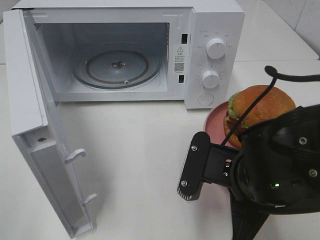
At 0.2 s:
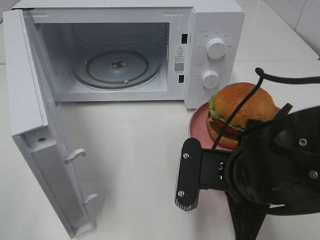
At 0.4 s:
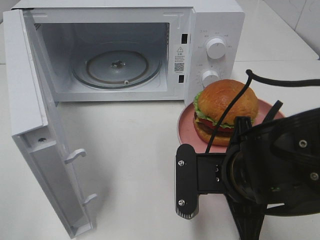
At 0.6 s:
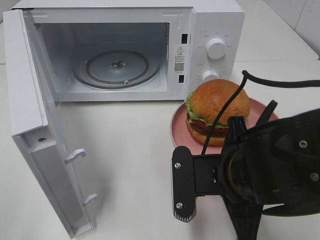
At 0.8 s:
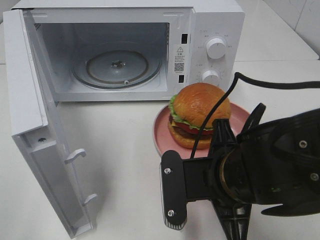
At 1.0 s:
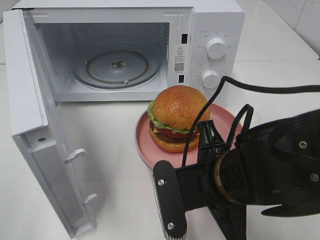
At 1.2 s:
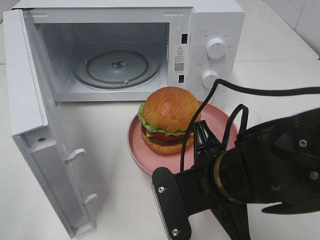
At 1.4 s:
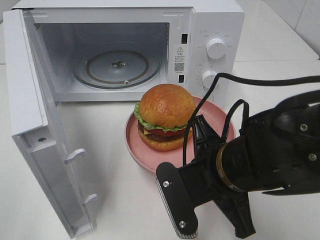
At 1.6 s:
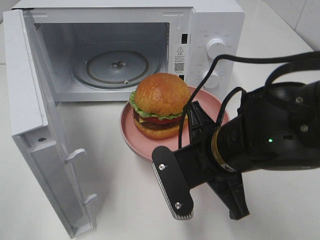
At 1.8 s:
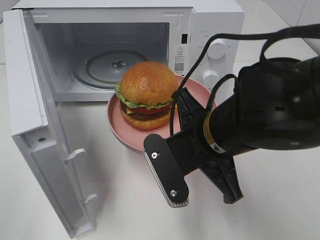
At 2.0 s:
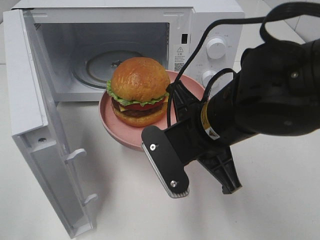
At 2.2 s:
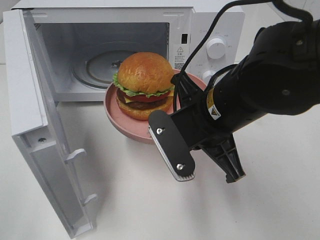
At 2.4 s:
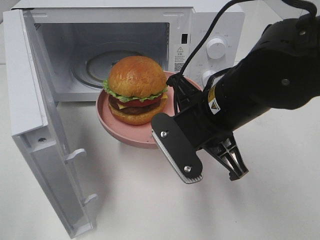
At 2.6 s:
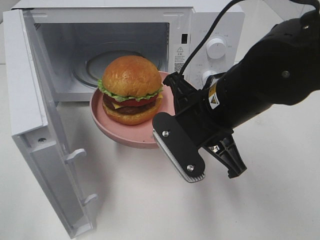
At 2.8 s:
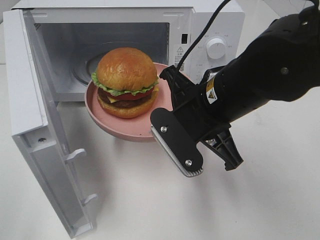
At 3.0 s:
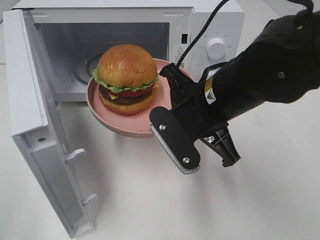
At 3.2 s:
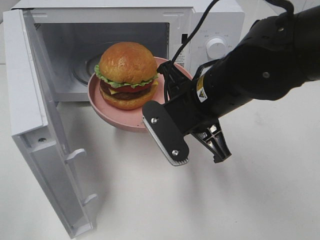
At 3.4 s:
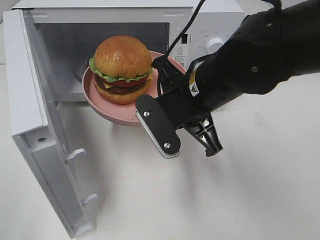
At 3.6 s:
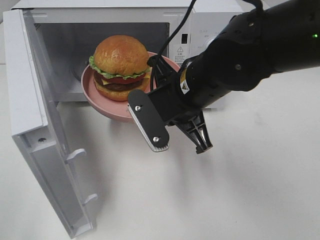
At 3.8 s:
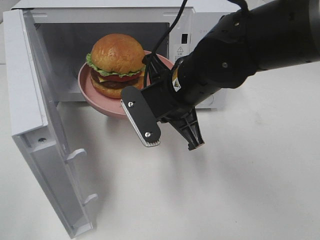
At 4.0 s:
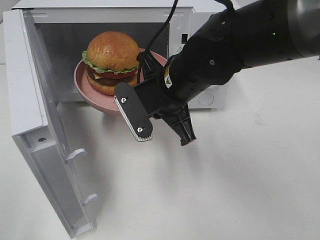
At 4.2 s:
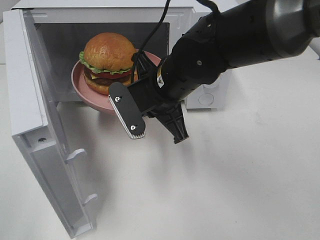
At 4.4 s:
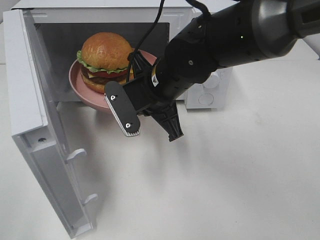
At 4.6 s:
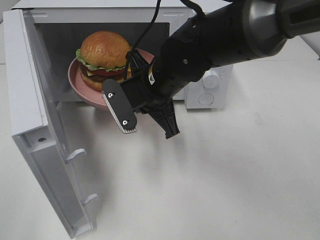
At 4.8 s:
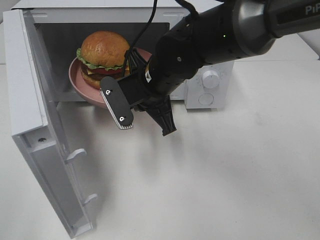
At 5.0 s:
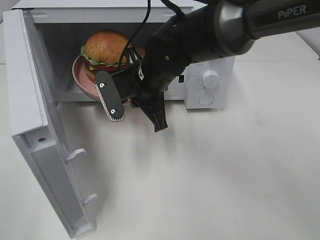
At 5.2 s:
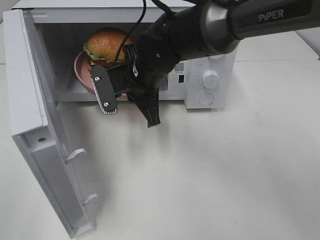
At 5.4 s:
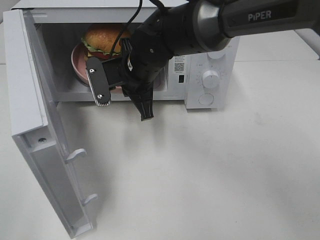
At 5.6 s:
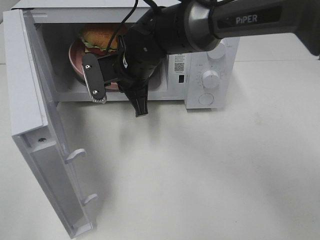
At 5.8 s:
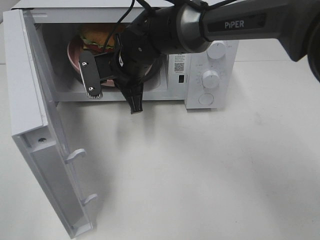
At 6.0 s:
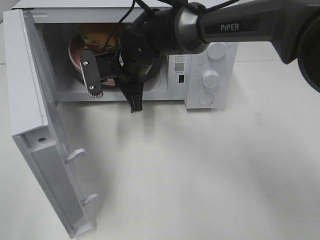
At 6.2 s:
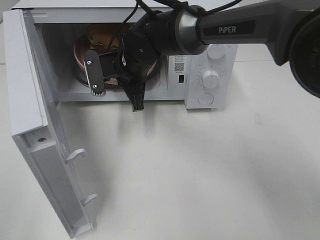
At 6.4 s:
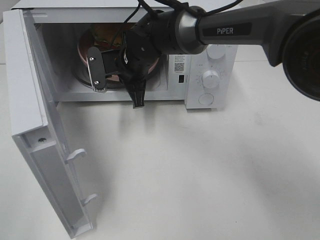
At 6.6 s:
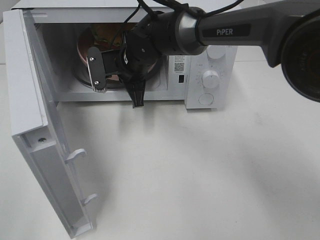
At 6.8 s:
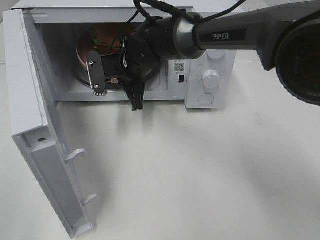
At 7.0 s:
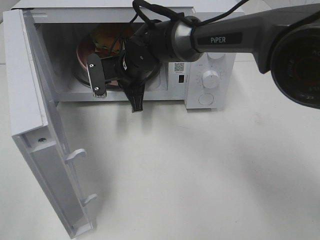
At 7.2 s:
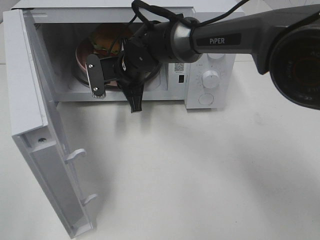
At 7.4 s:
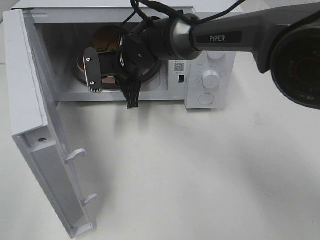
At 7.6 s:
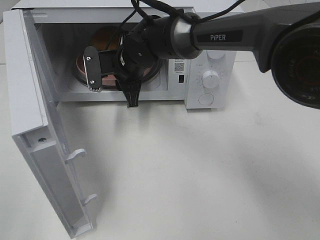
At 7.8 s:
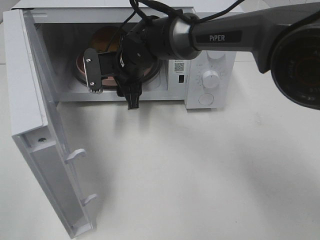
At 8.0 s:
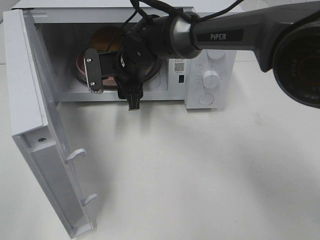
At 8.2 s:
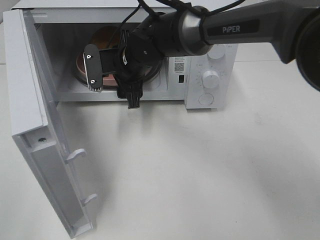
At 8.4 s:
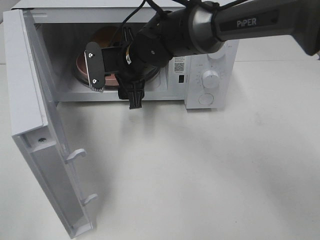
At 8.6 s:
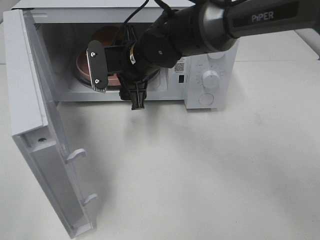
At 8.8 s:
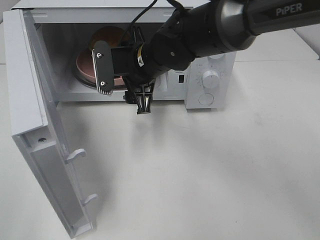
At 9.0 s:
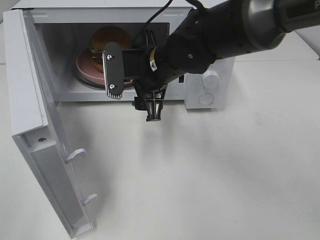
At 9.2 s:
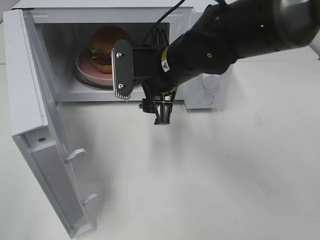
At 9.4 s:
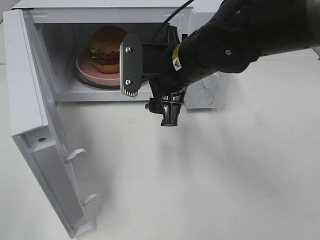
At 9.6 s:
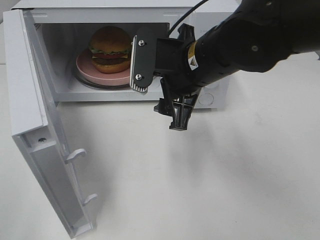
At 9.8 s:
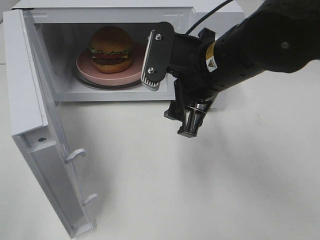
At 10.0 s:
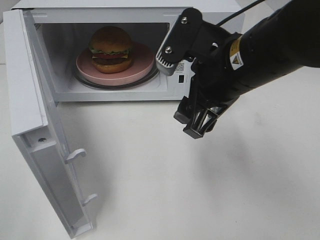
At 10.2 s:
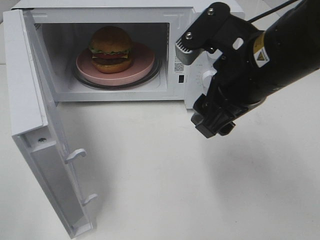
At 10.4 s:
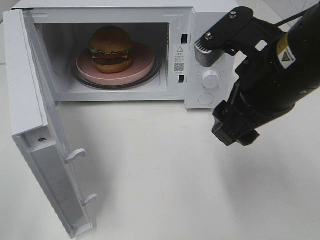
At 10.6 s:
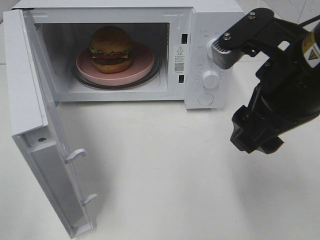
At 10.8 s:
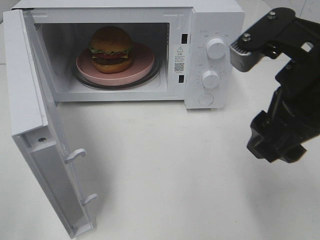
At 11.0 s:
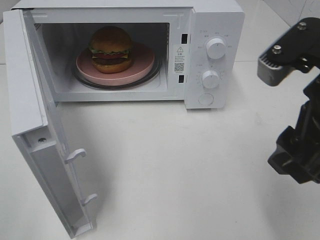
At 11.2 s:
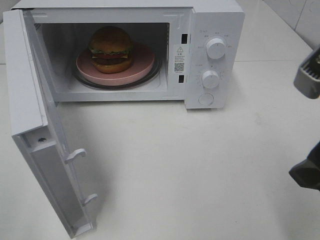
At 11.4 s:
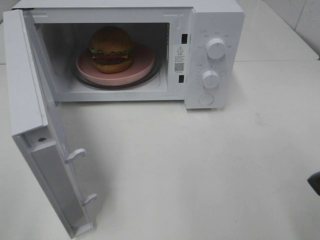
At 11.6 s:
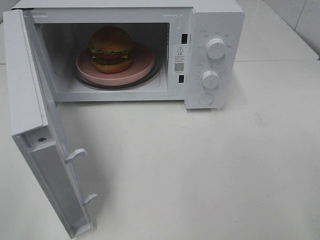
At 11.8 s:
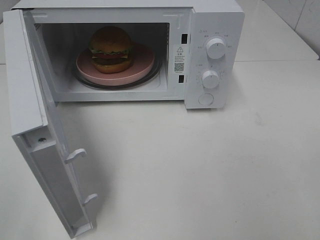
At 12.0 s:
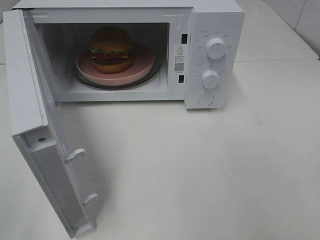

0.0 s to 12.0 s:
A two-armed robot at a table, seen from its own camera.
Task of the whole recording: Heat the burger.
Step, 0.0 to 7.6 s: Right hand: place the plate in the microwave.
1.6 to 3.0 s: The right gripper travels forward by about 5 cm.
3.0 to 4.4 s: The right gripper shifts roughly 10 cm forward and to the left.
4.4 to 6.0 s: The right gripper heads forward and to the left, covering some 10 cm.
6.0 to 7.6 s: The right gripper opens.
7.6 to 9.0 s: The right gripper moves backward and to the right, roughly 10 cm.
9.0 to 10.4 s: The right gripper heads backward, to the right and upward, covering roughly 20 cm.
10.4 to 12.0 s: The right gripper travels to the right and backward by approximately 20 cm.

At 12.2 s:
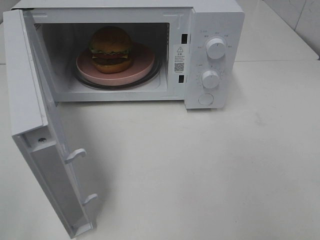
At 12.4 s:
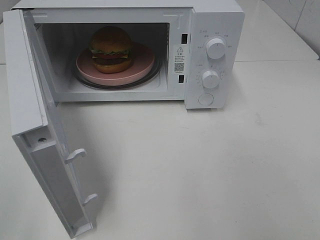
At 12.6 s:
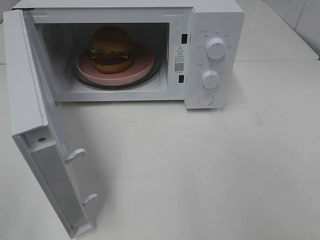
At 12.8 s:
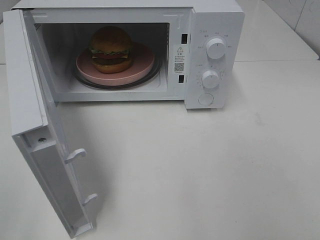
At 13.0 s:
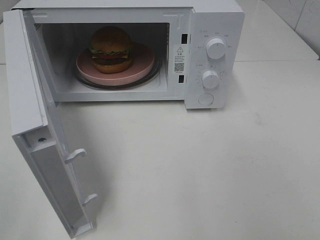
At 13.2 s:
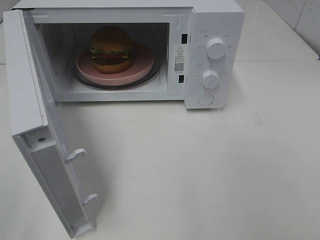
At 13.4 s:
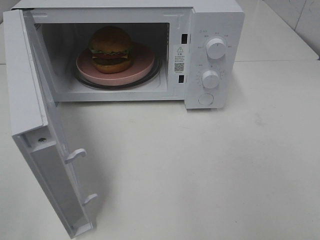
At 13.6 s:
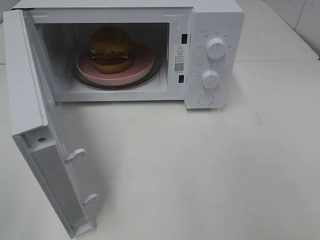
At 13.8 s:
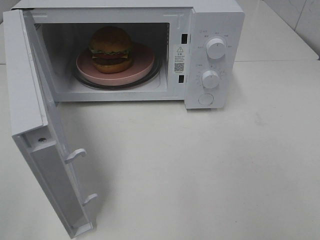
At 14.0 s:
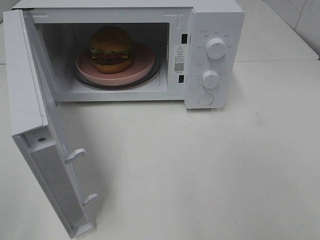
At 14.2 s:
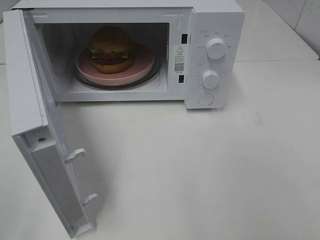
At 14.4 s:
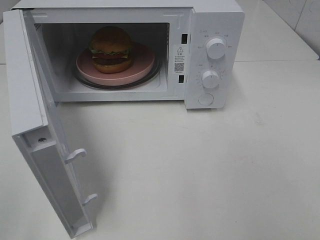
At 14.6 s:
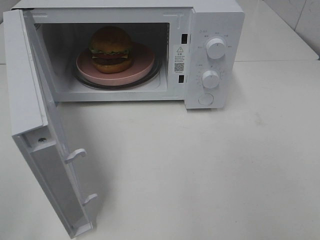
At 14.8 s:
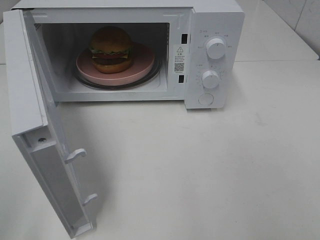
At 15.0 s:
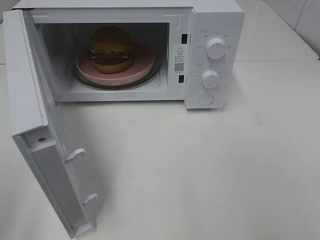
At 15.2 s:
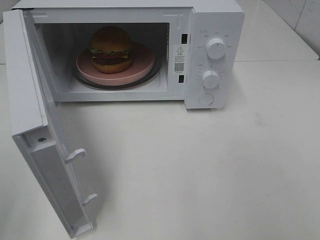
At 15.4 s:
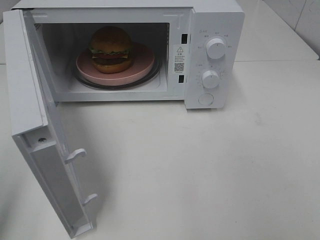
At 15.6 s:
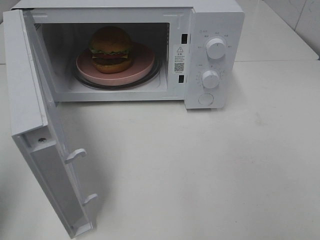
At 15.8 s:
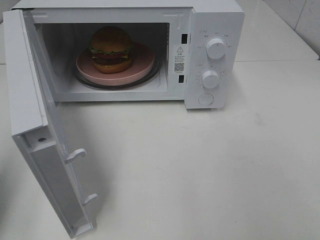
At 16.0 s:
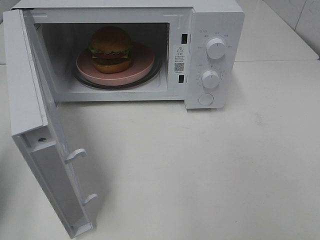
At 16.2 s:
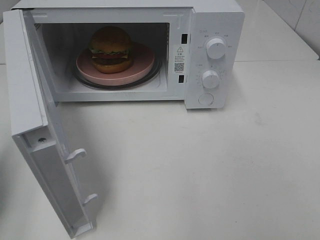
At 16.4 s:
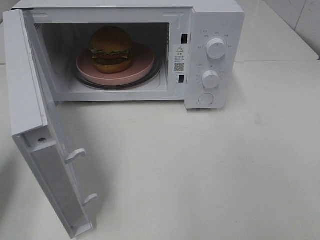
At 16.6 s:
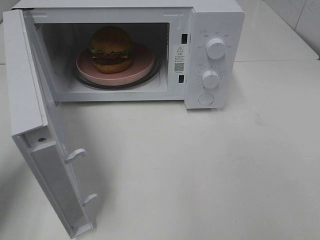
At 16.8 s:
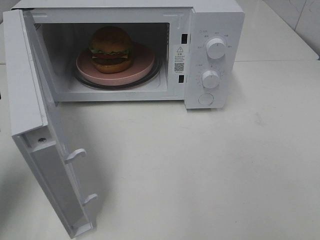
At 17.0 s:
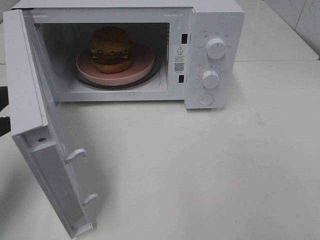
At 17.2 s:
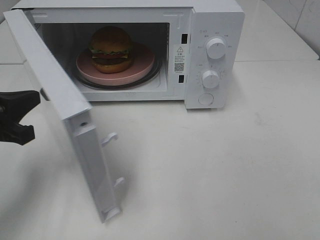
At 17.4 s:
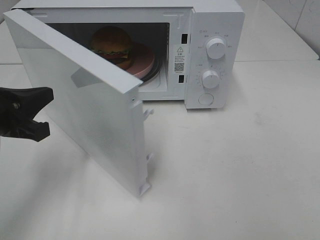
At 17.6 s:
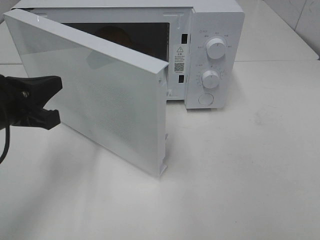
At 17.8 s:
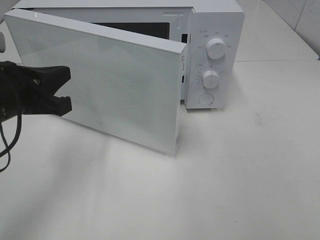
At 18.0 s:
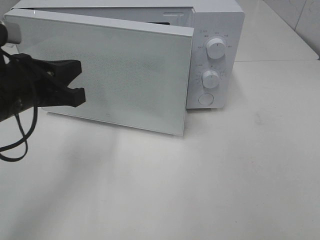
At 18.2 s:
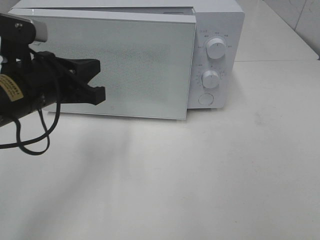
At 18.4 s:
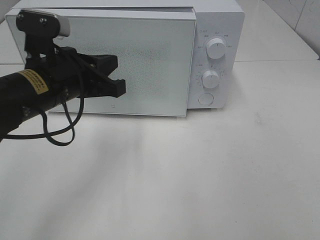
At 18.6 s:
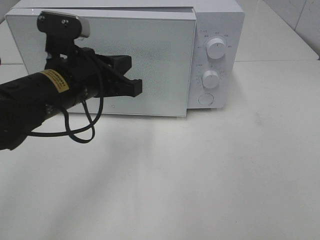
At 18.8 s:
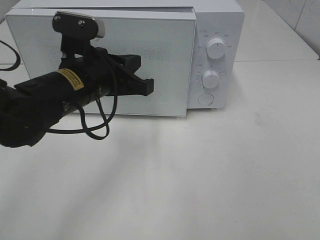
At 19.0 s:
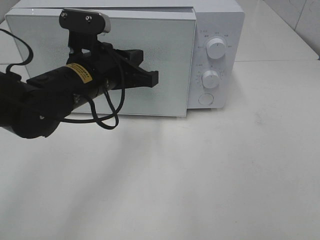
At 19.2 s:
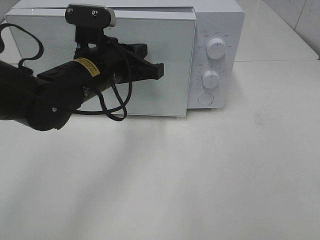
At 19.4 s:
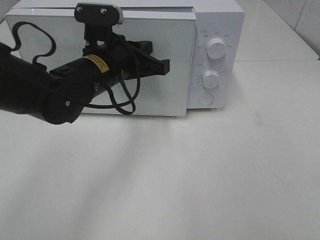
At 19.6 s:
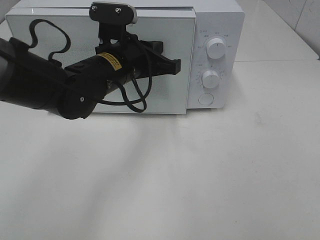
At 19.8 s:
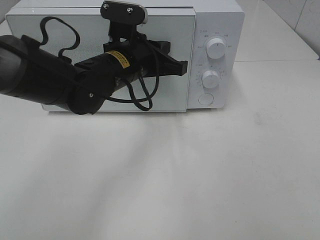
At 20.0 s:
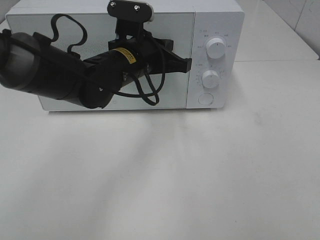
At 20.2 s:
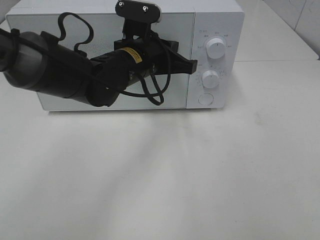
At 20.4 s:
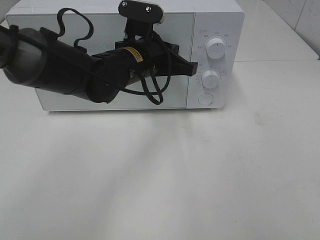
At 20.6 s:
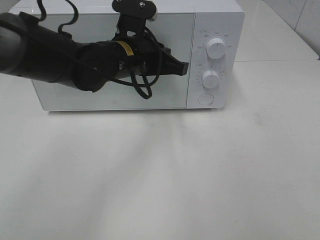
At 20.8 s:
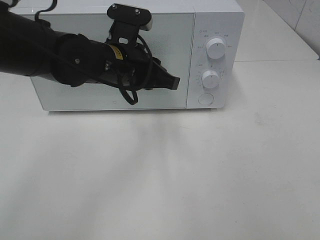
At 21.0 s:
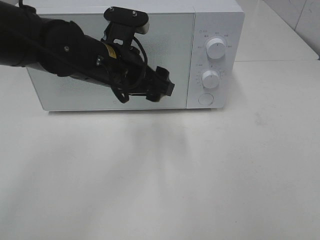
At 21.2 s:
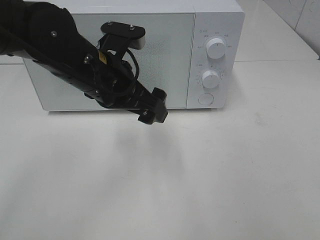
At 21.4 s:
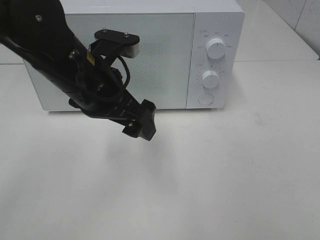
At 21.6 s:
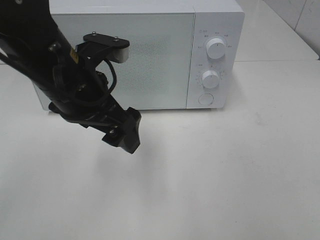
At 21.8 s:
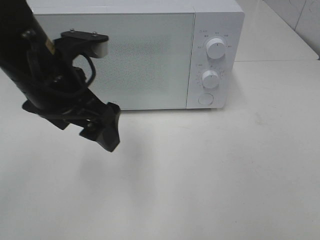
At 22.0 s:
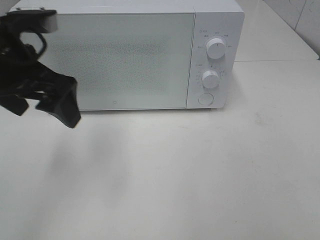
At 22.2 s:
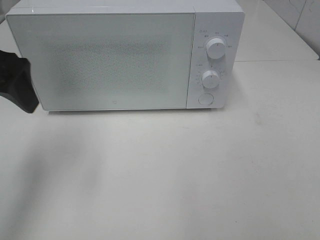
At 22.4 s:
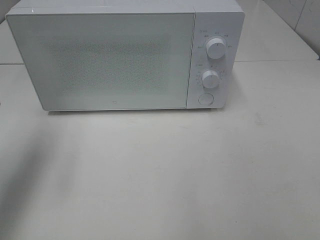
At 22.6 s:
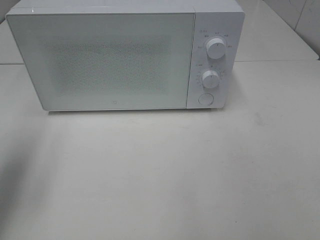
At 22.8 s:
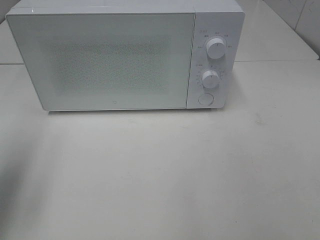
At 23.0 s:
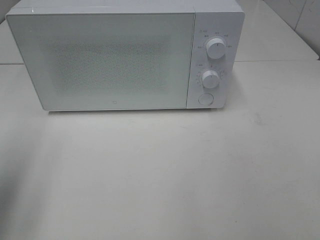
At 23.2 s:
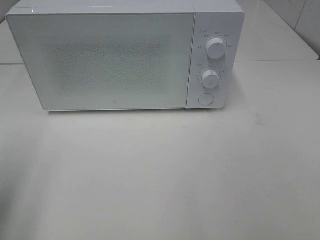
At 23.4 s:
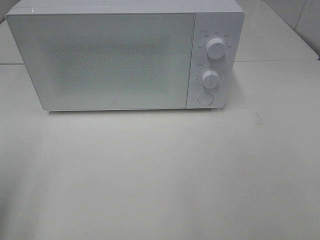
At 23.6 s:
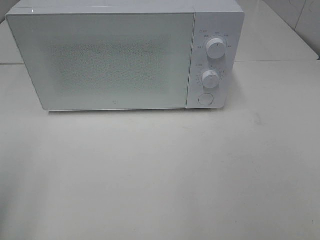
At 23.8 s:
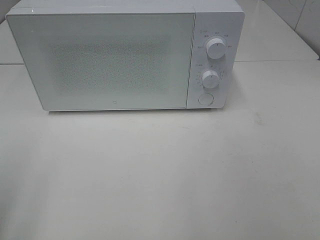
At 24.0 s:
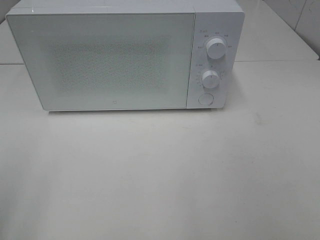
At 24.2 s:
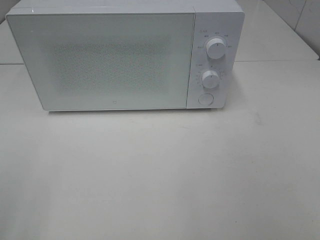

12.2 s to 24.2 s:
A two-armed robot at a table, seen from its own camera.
Task of the whole recording: Heat the burger.
Step, 12.2 to 20.6 s: Left hand: close the microwave door.
15.2 to 16.6 s: The left gripper moves forward and downward, about 15 cm, and closes up.
16.6 to 18.2 s: The left gripper goes some 15 cm to the right and forward.
18.2 to 19.8 s: The left gripper heads to the right and forward, covering some 15 cm.
19.8 to 21.2 s: The left gripper shifts about 5 cm backward, and opens up.
21.2 to 22.6 s: The left gripper shifts roughly 25 cm to the left.
22.6 to 24.2 s: The left gripper shifts roughly 20 cm backward.
